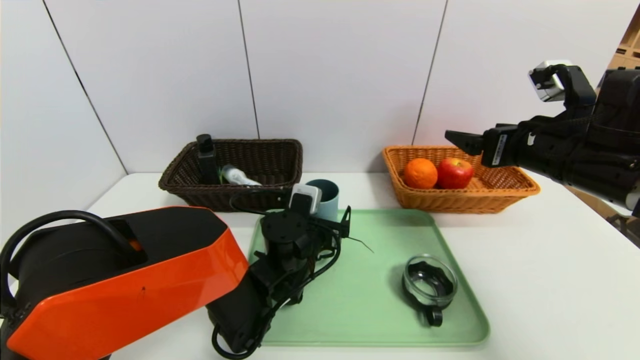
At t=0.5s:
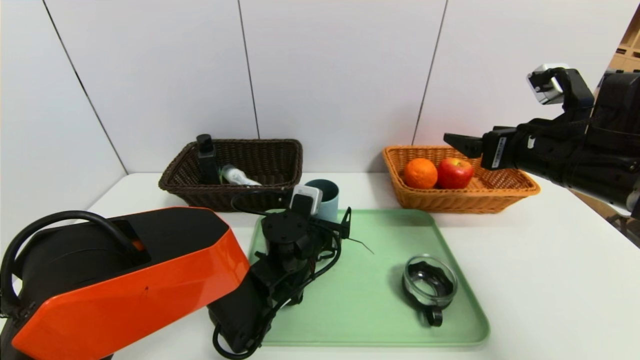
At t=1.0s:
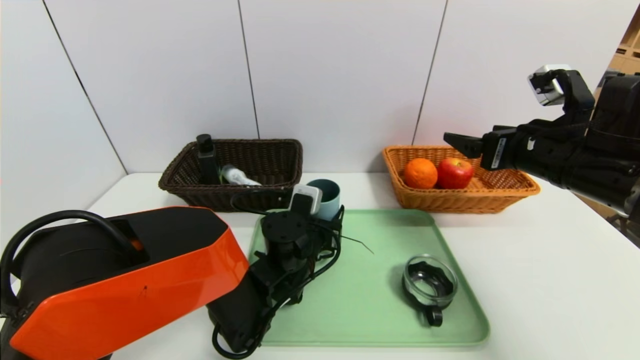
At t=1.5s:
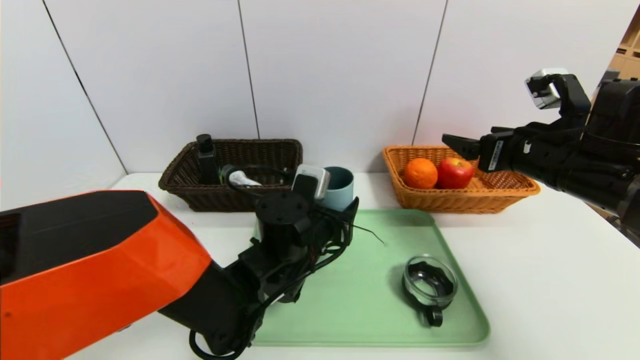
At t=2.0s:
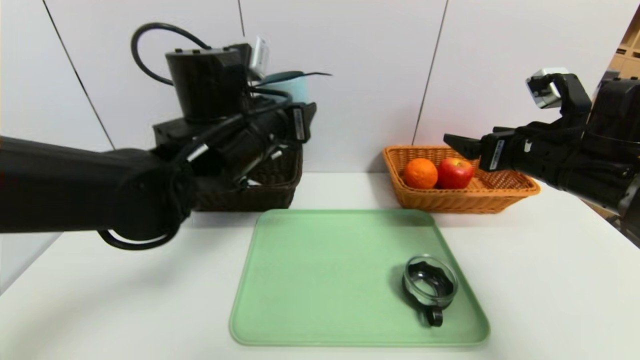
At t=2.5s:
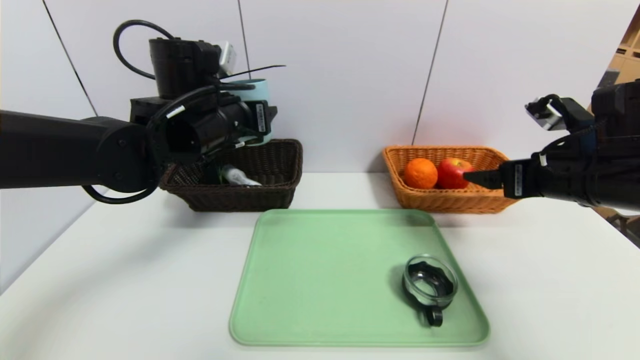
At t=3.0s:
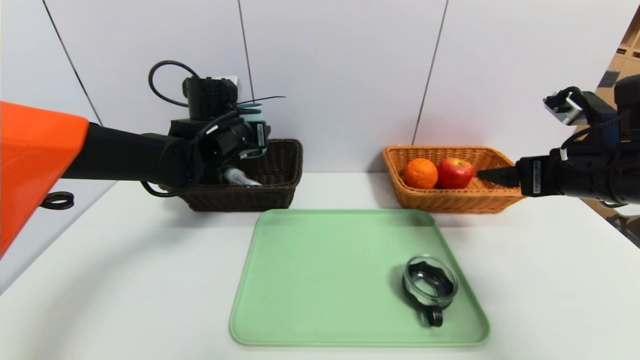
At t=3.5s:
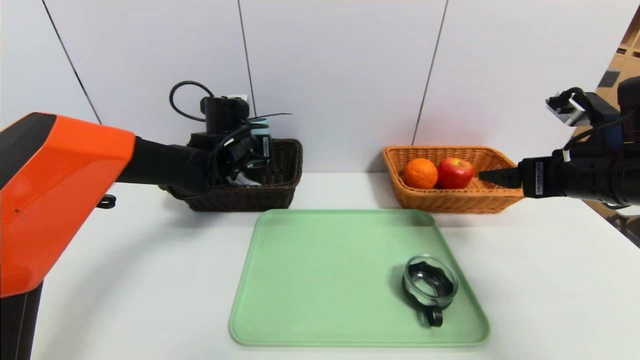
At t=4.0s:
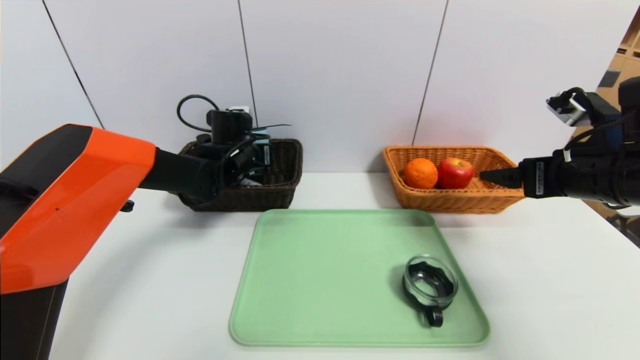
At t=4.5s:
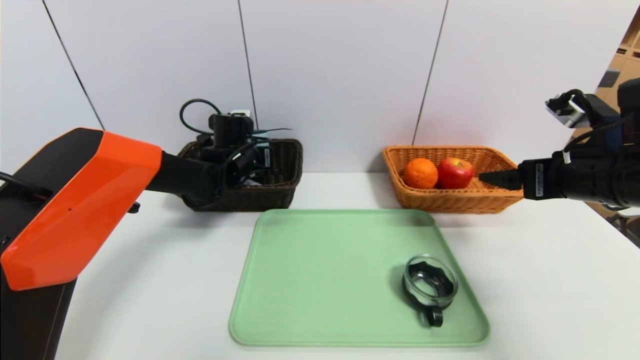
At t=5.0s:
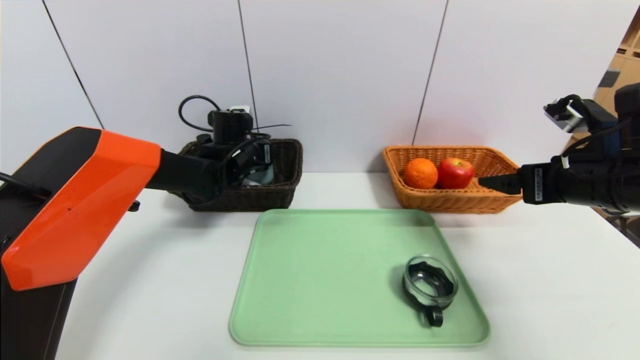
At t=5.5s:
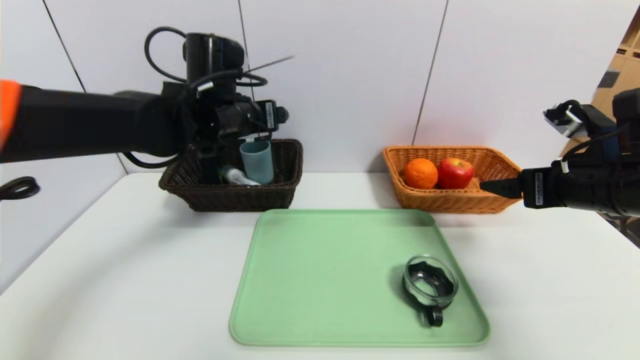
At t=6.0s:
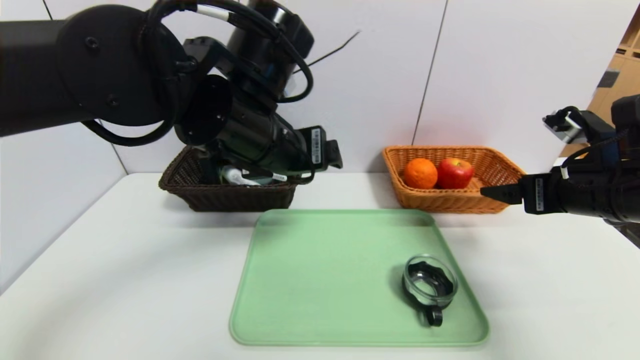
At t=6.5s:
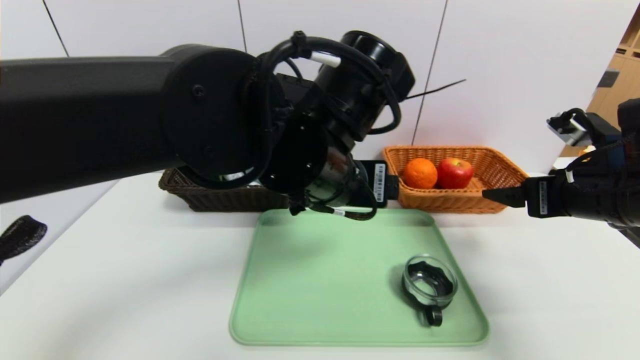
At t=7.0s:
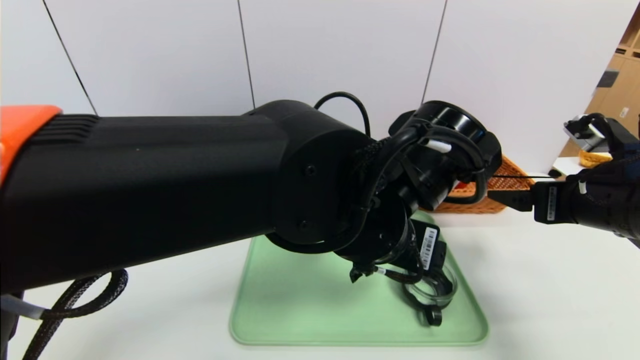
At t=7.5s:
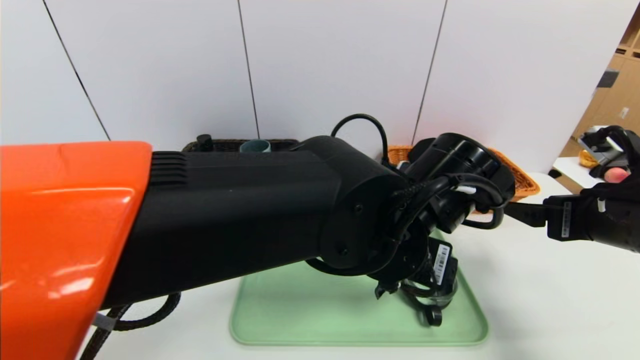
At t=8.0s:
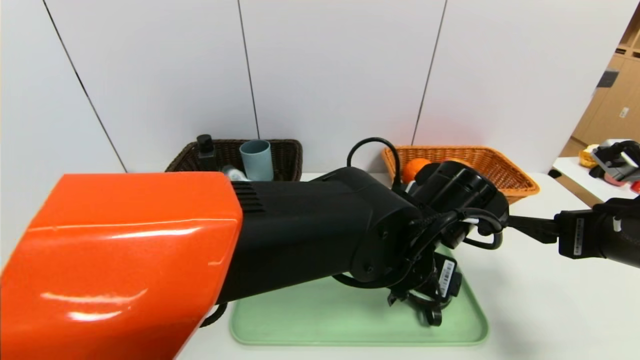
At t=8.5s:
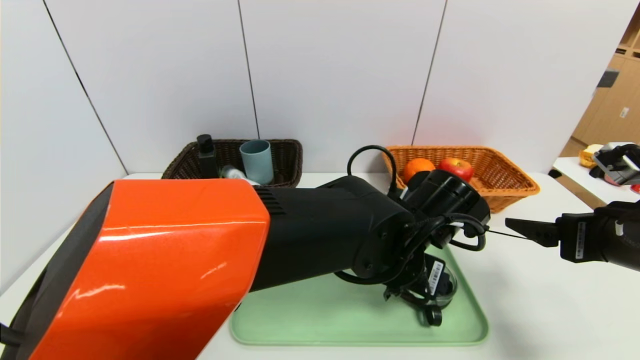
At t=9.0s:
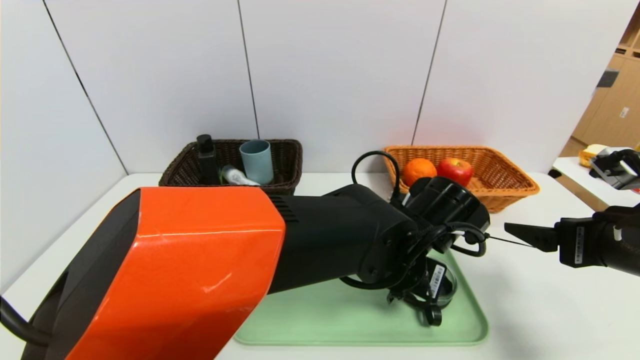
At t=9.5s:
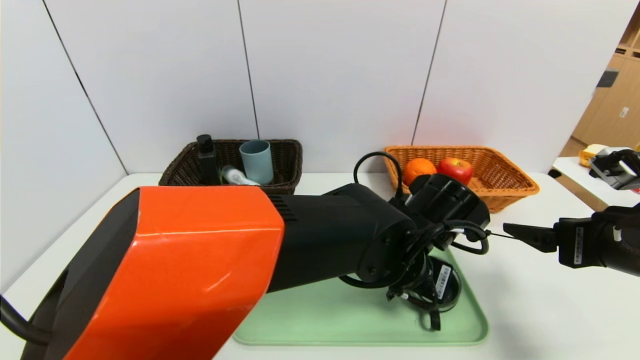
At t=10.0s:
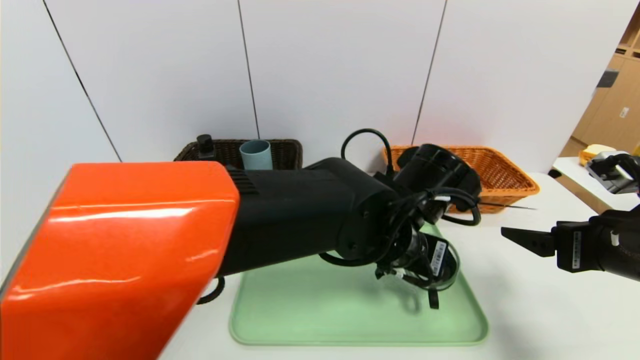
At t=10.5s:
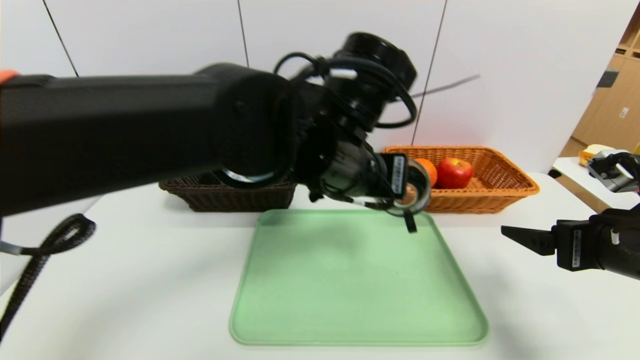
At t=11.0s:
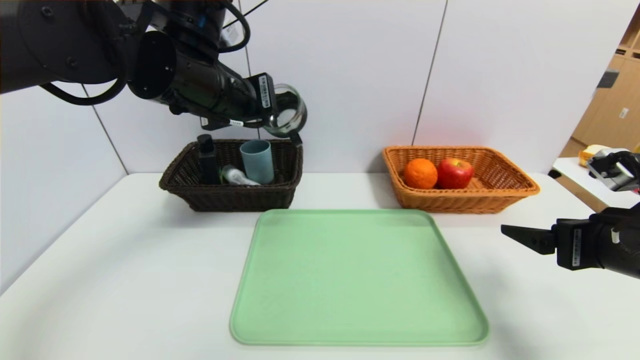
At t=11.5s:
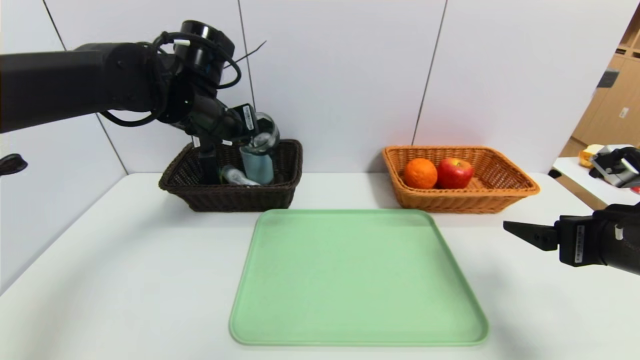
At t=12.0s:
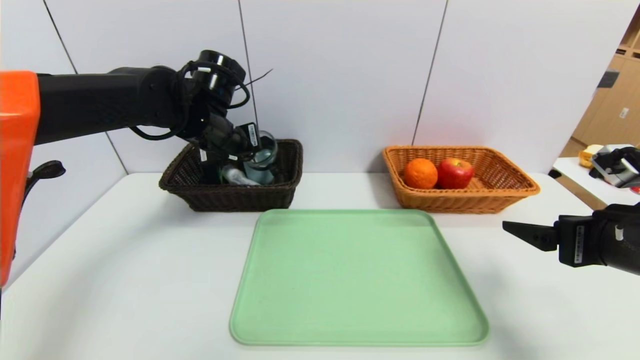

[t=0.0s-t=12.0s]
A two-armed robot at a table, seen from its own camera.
Task of the whole recording: place the food in the right basket with the right gripper, and place the non food items in the left basket with the left gripper.
Step, t=0.0s to t=6.5s: Grasp the blue cup and put it in the left basket.
t=0.0s to t=2.0s: The left gripper heads upward, covering approximately 20 cm.
t=2.0s to t=4.0s: The left gripper moves forward, downward and to the left, some 20 cm.
t=4.0s to t=6.0s: The left gripper moves backward, upward and to the right, roughly 25 cm.
t=6.0s to t=8.0s: The right gripper heads backward, covering approximately 5 cm, while the left gripper shifts roughly 20 cm to the right and downward.
t=8.0s to t=10.0s: The left gripper closes.
t=10.0s to t=12.0s: The left gripper goes about 30 cm to the left and forward.

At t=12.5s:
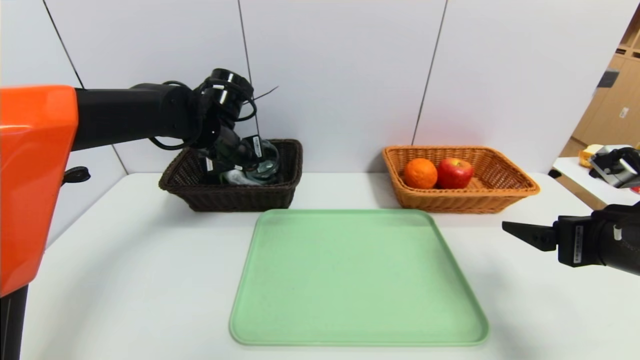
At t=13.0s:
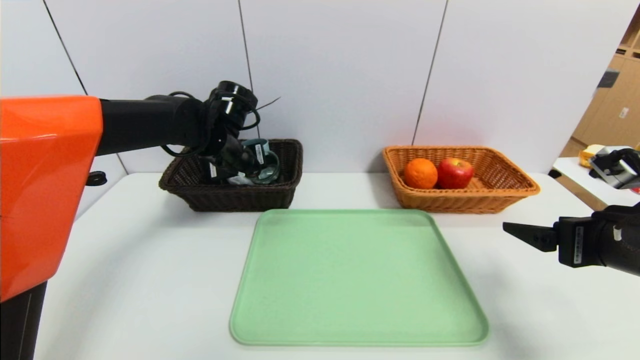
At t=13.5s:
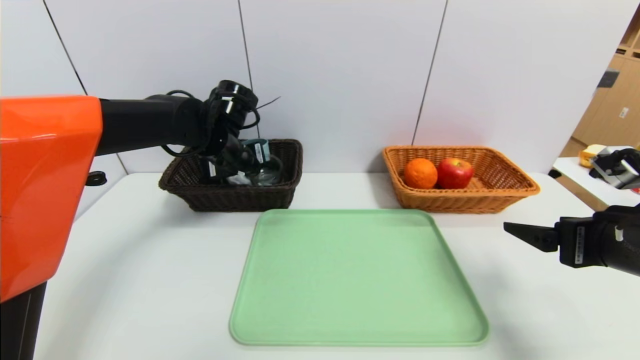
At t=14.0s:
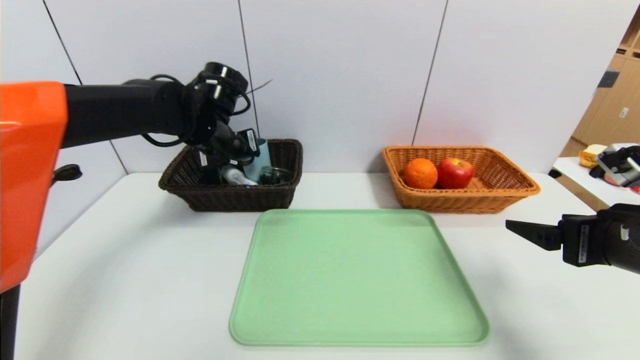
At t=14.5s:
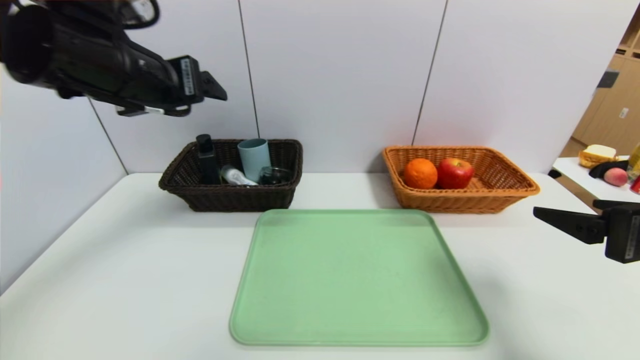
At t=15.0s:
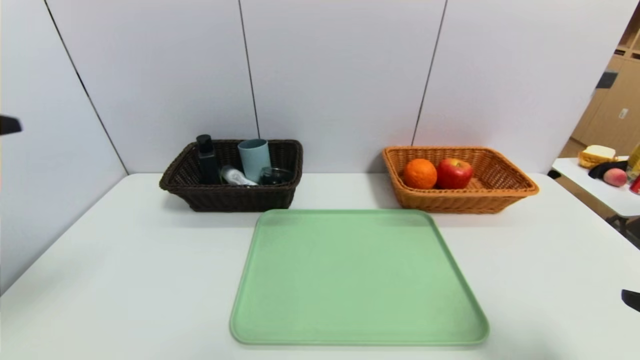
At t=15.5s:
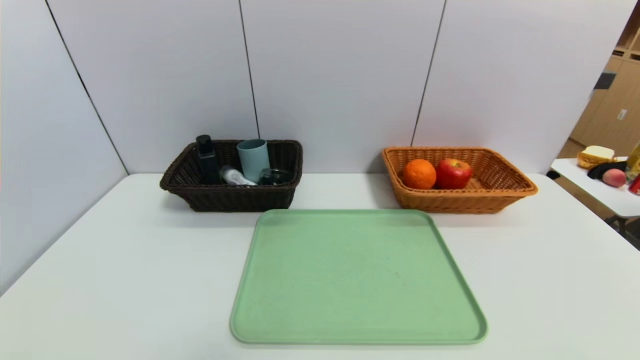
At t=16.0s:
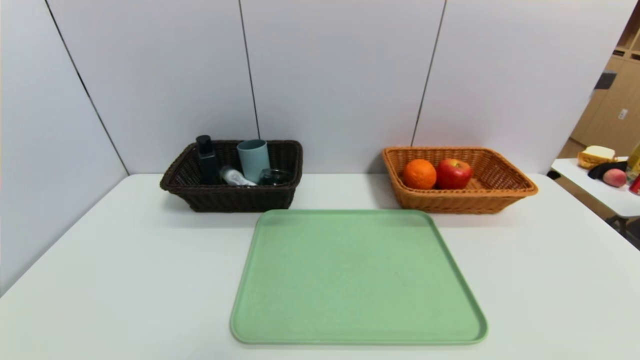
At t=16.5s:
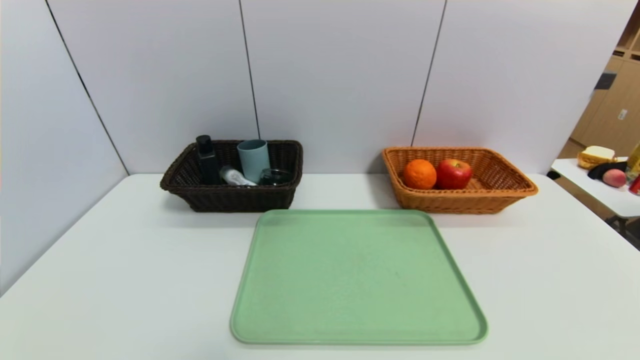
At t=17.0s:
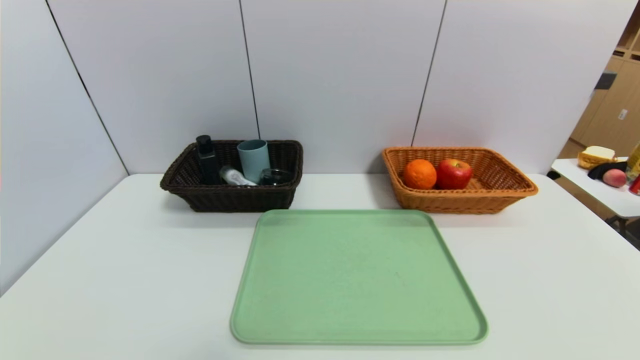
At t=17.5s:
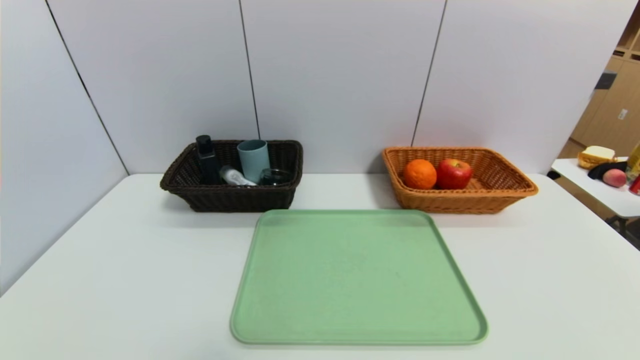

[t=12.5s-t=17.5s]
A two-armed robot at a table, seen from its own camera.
Task of the whole recording: place the food in the right basket with the right gripper, and place the non food items in the left basket with the left gripper.
Step, t=12.5s to t=14.5s: Grasp the black glass cup and put it in the left basket.
t=12.5s to t=15.0s: The right gripper heads backward, covering about 15 cm, while the left gripper heads backward and to the left, covering approximately 35 cm, and opens.
t=15.0s to t=17.5s: The left gripper is displaced downward by roughly 25 cm; the right gripper goes approximately 20 cm downward and backward.

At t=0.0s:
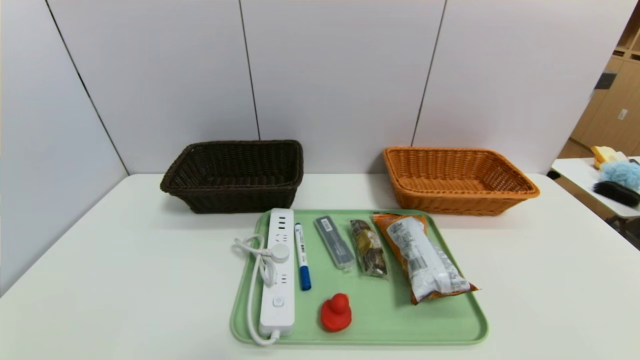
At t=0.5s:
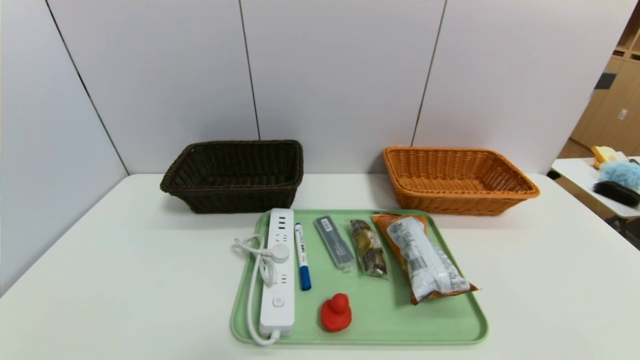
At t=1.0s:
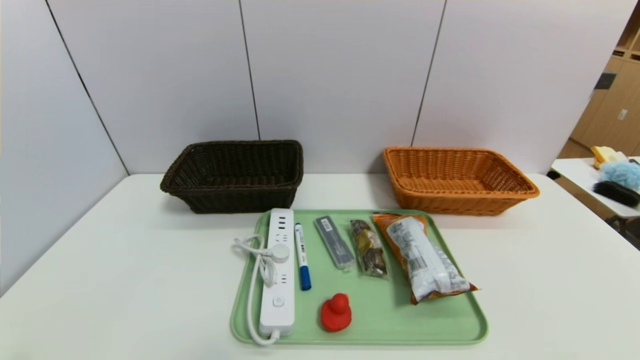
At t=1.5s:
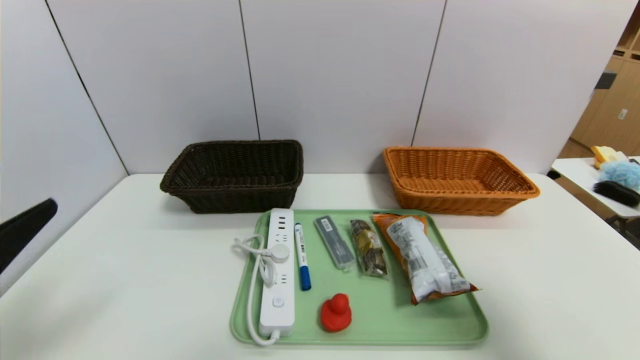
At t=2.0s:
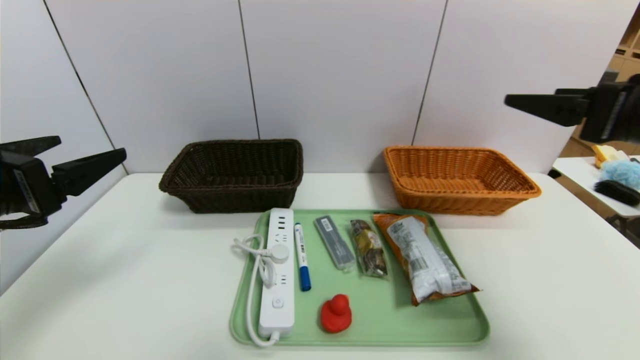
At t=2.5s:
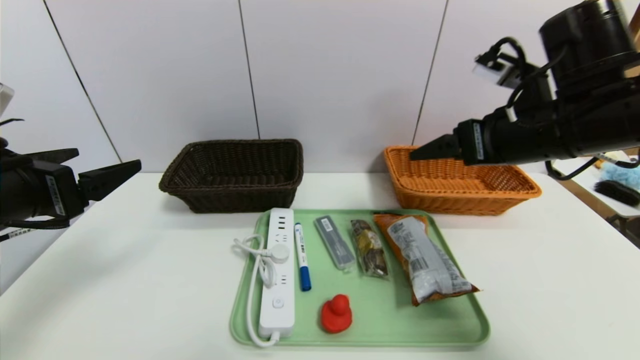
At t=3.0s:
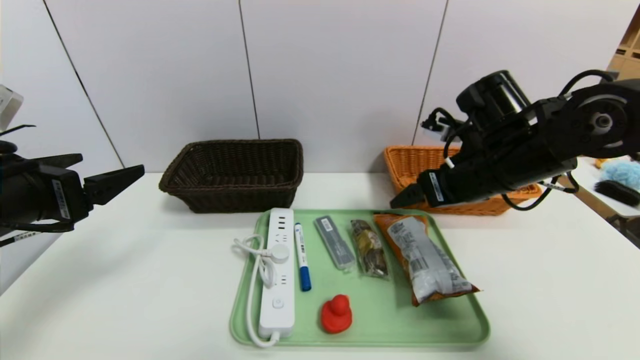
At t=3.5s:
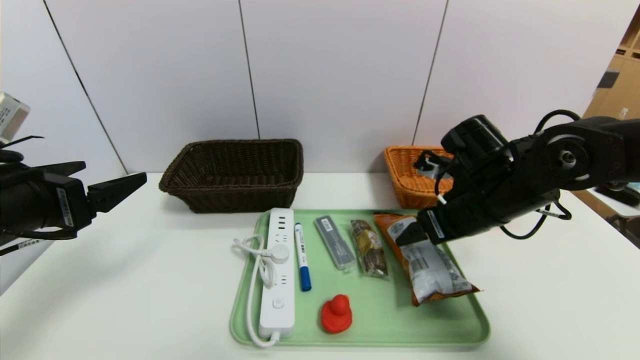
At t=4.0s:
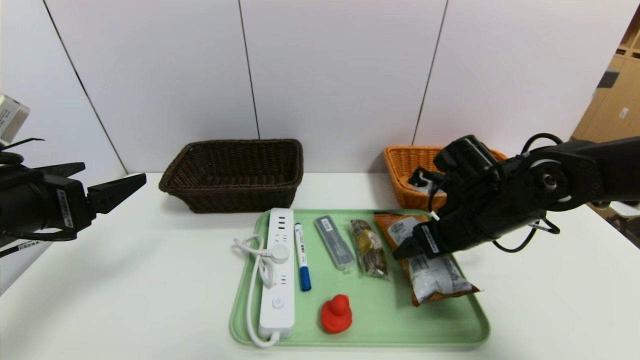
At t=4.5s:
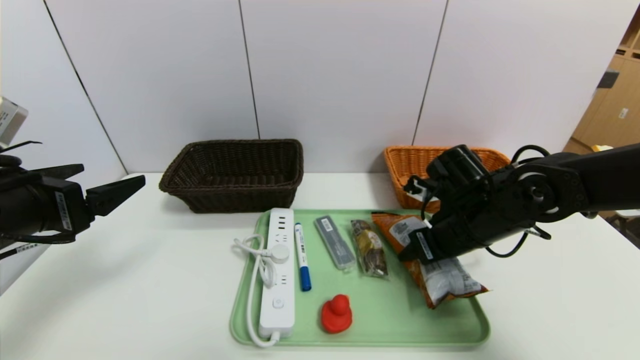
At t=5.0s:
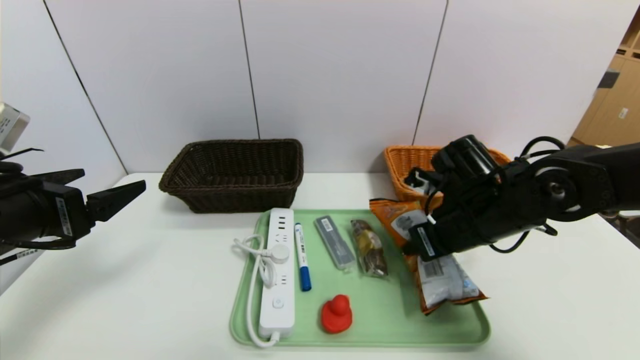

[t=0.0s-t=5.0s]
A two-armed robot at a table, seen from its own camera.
Task of the whole recording: place the food in the right basket with the right gripper, and place the non food items in the left basket with the left gripper.
t=0.0s to t=2.5s: Both grippers move forward and upward, roughly 30 cm.
t=2.5s to t=5.0s: The right gripper shifts some 15 cm downward, and closes up.
